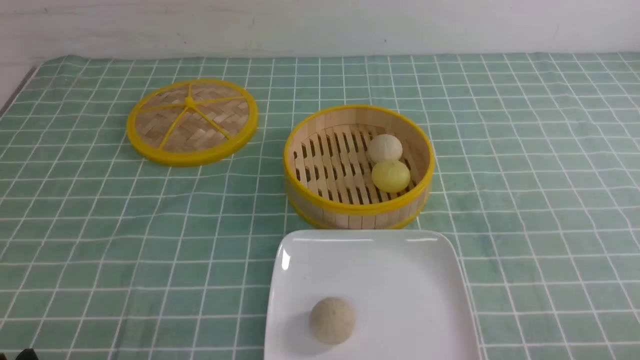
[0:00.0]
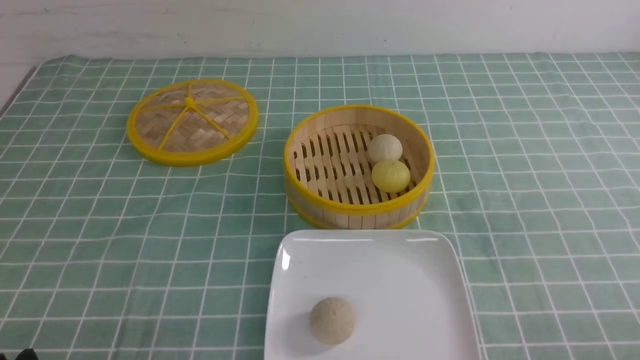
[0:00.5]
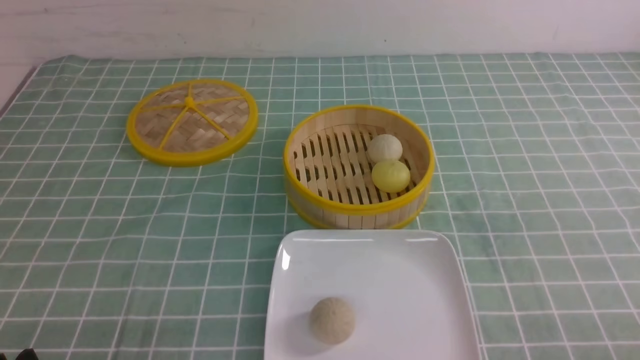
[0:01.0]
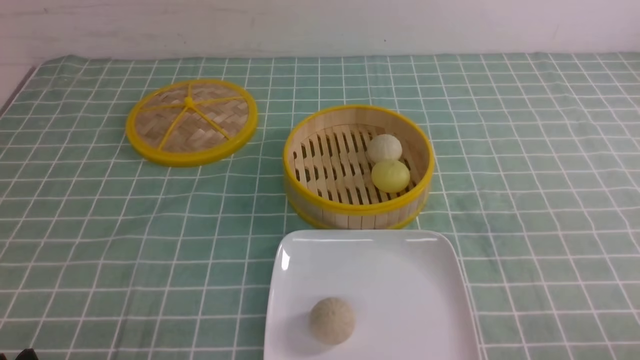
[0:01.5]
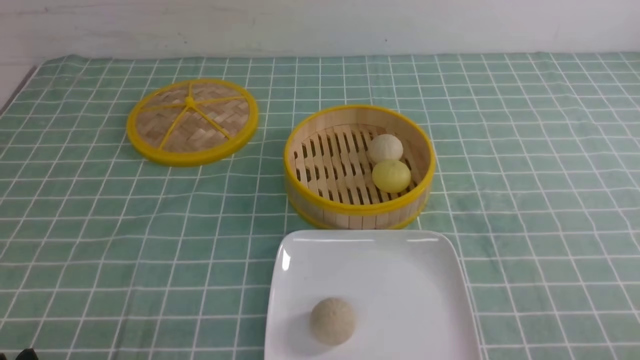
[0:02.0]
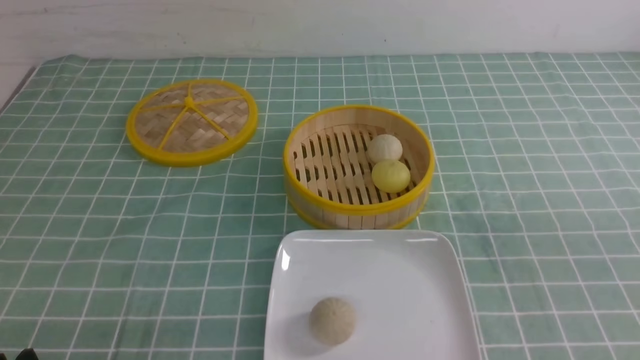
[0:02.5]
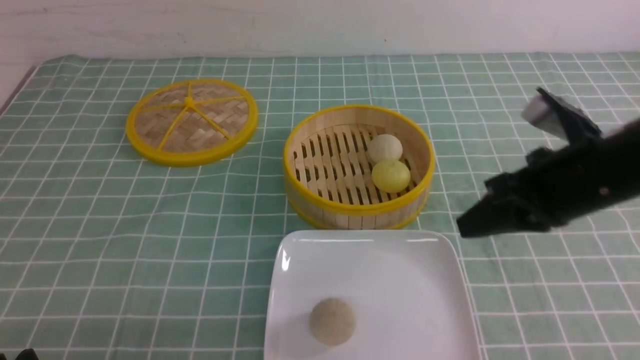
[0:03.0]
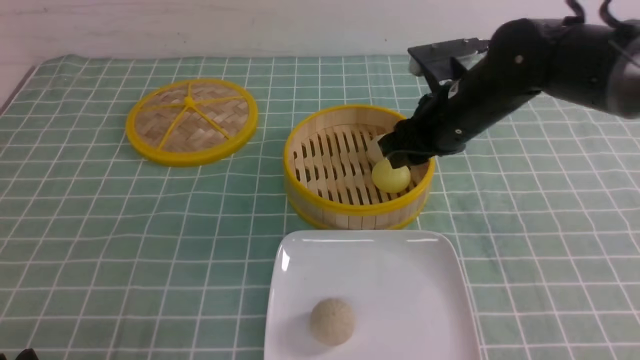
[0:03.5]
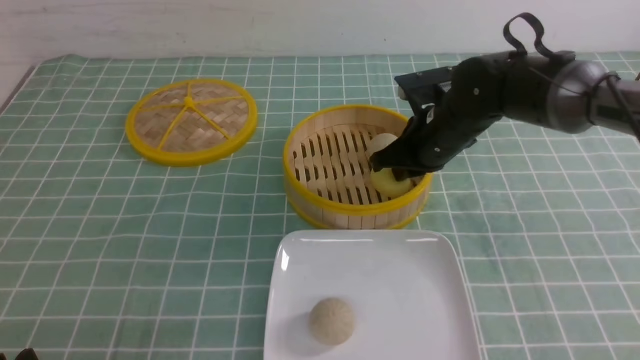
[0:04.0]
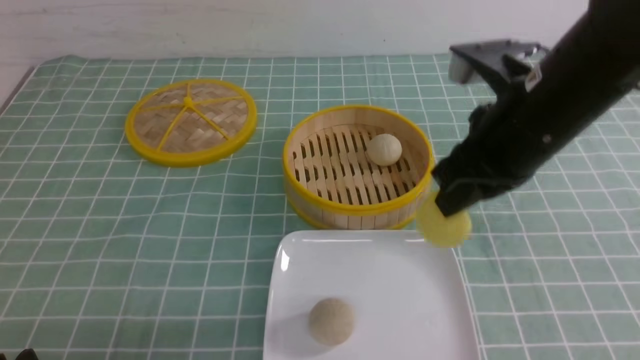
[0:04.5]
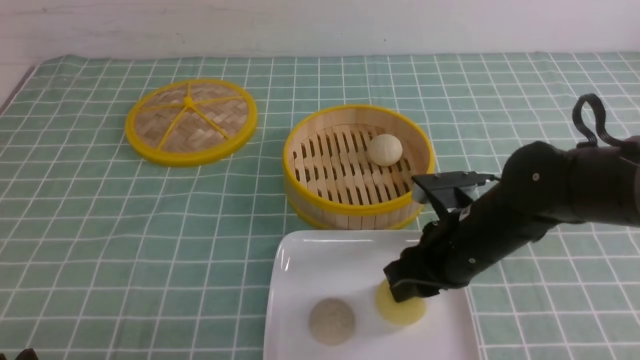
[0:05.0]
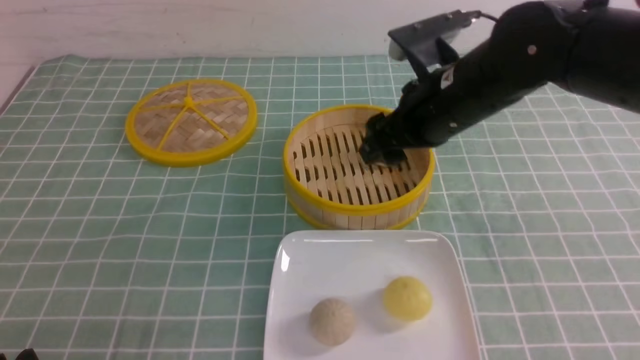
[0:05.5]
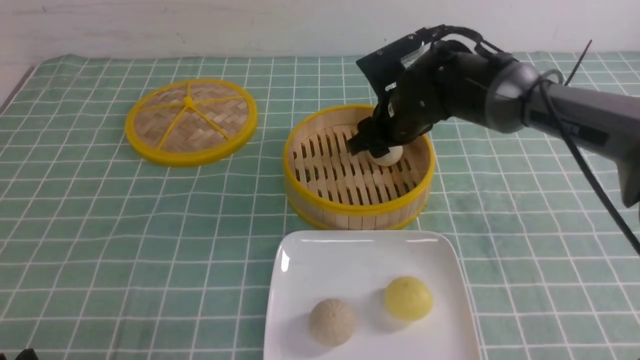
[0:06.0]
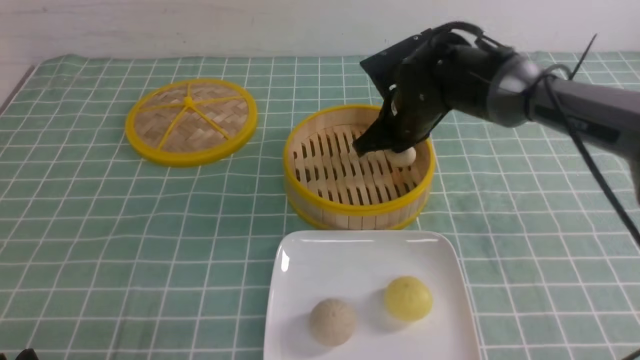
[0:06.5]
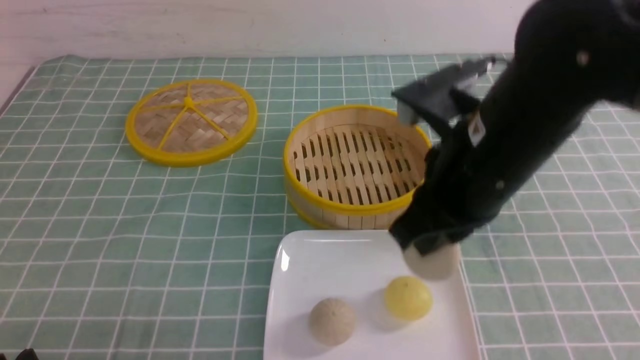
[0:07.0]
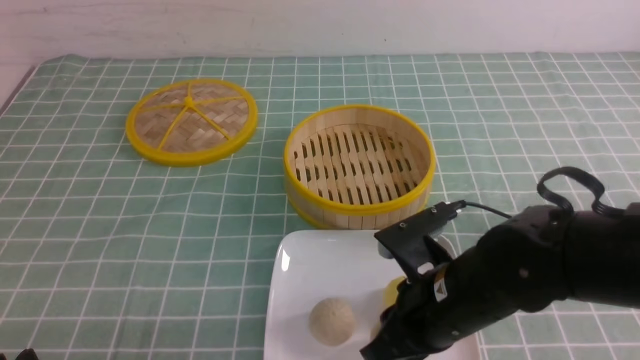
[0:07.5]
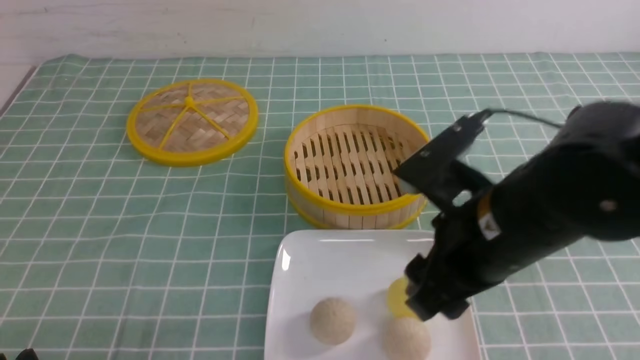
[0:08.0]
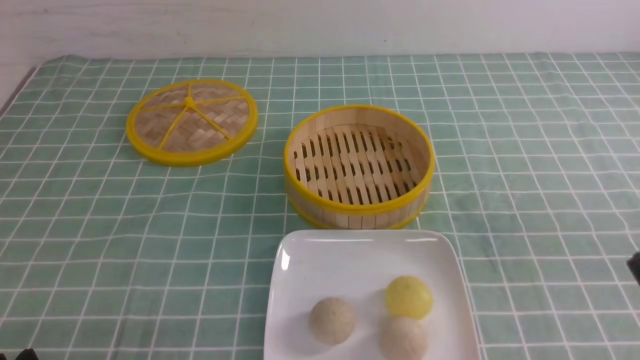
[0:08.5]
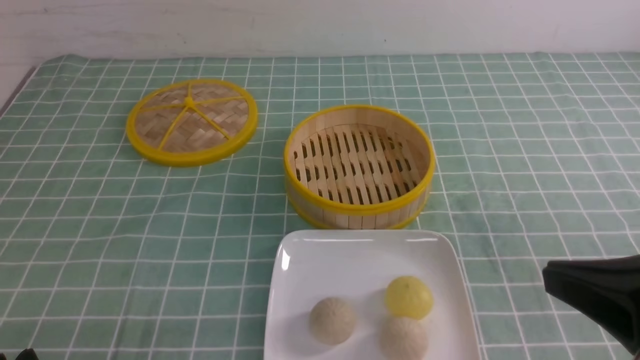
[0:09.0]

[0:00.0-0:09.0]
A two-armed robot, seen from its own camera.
Step, 0:00.0 to 0:04.0: use the right arm to grab the steamed stuffed bun that is closest to it.
Step, 0:05.0 to 0:06.0: use the right arm to grab the steamed stuffed bun that is closest to it.
Step, 0:06.5 to 0:07.5: use the right arm to put the steamed stuffed bun into the plate.
0:02.0 to 0:04.5: The right gripper heads forward and to the left, covering about 30 cm.
0:04.5 to 0:07.0: The right gripper travels forward and back again, approximately 15 cm each way, and opens, then closes again.
0:07.0 to 0:09.0: The right gripper goes up and down, approximately 15 cm each way, reversing 2 times, and opens, then closes once more.

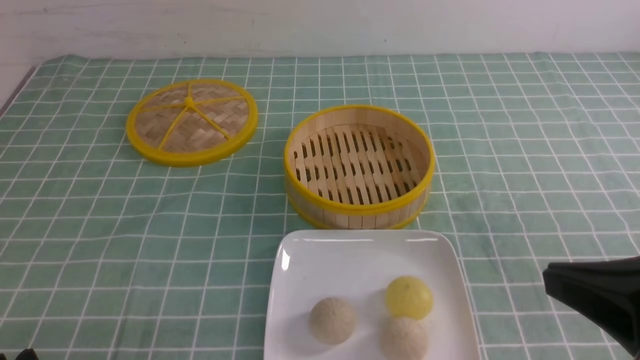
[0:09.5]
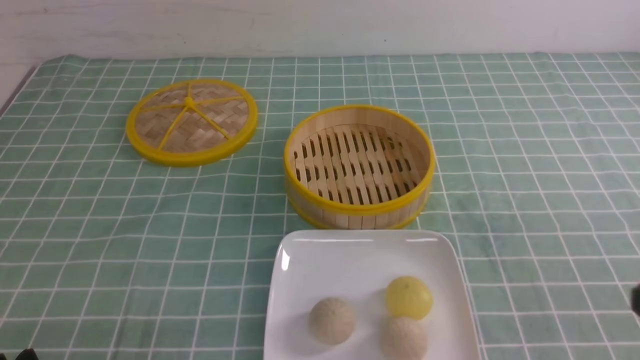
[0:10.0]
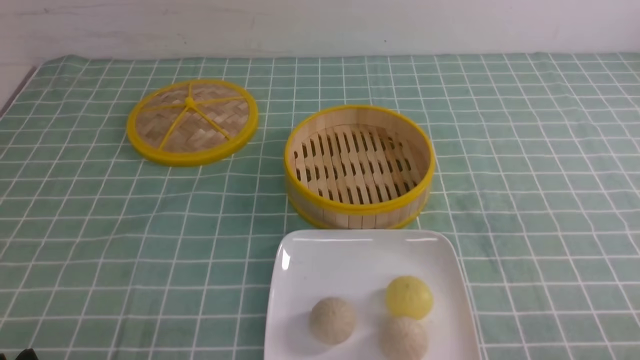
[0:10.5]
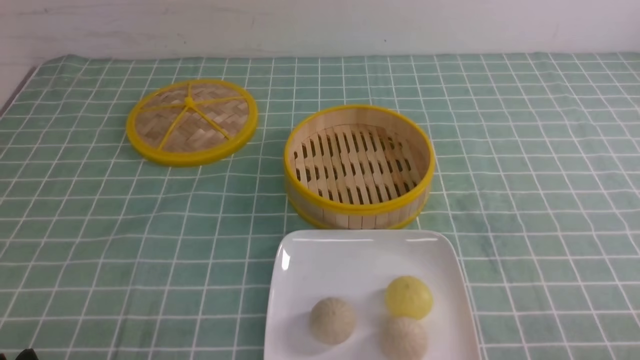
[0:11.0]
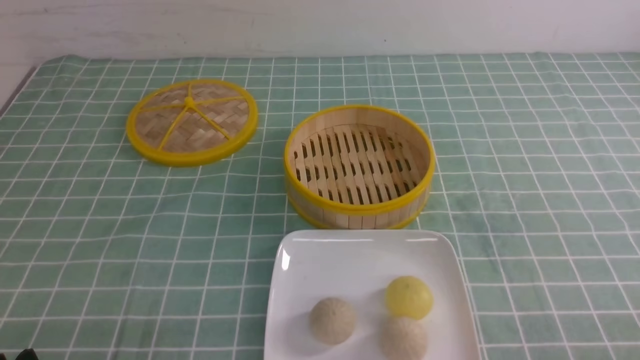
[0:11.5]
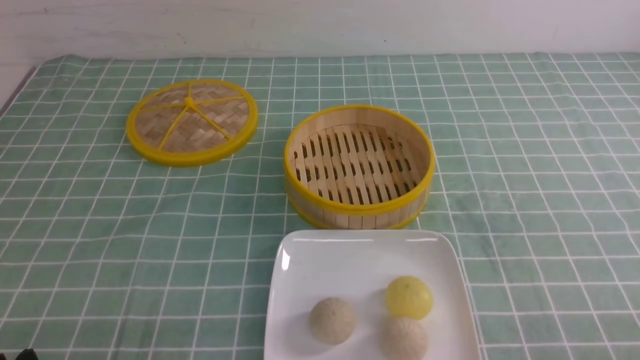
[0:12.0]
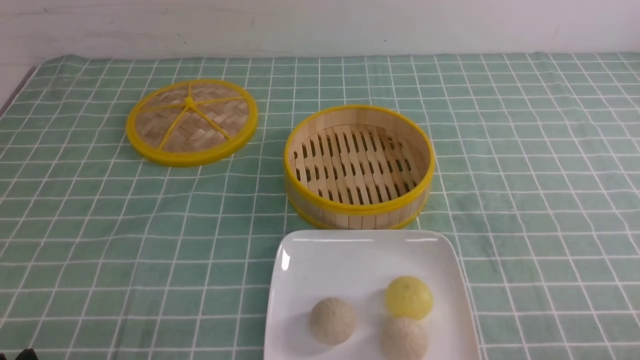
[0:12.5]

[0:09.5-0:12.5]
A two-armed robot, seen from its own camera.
0:09.5 to 0:11.0: The right gripper is displaced downward and to the right by roughly 15 cm.
0:11.0 to 0:12.5: Neither gripper changes place.
